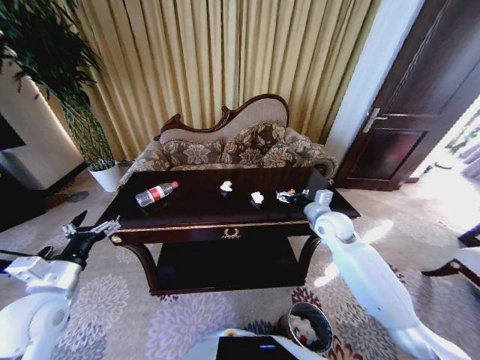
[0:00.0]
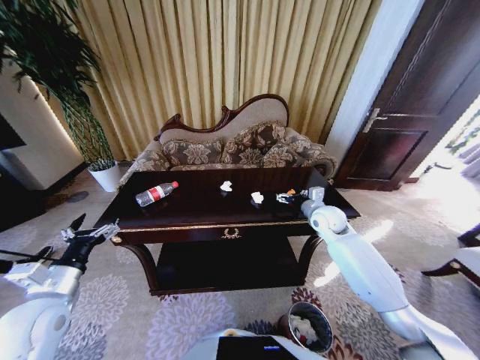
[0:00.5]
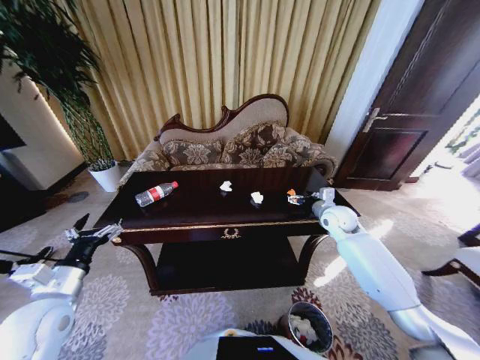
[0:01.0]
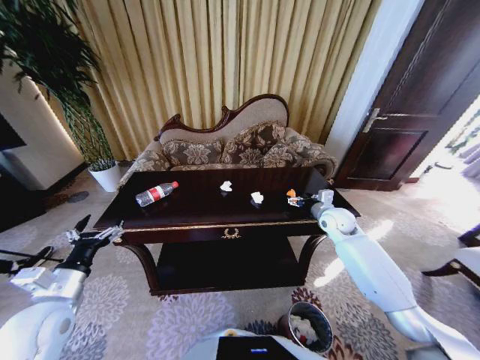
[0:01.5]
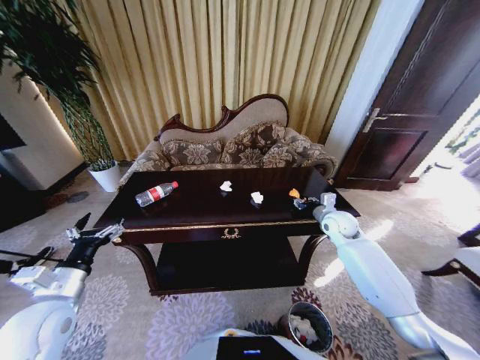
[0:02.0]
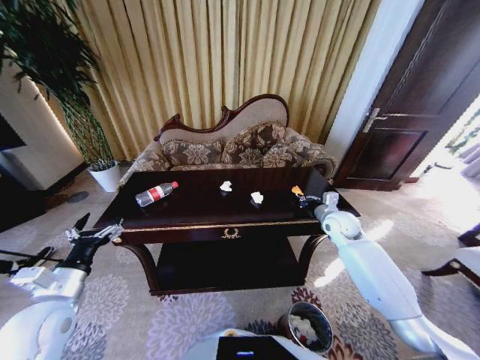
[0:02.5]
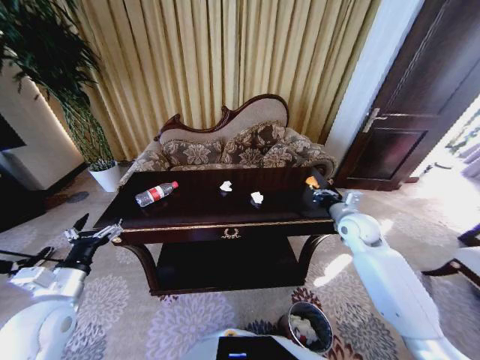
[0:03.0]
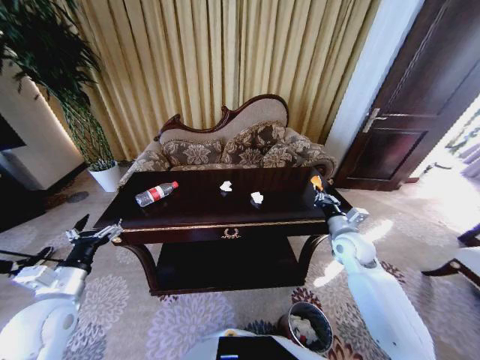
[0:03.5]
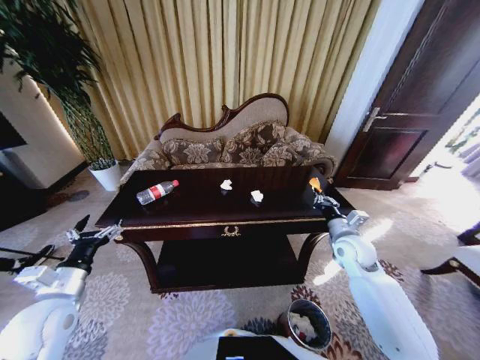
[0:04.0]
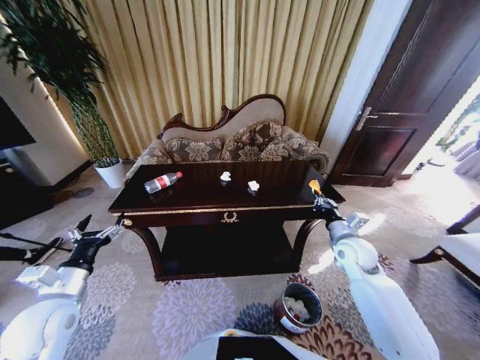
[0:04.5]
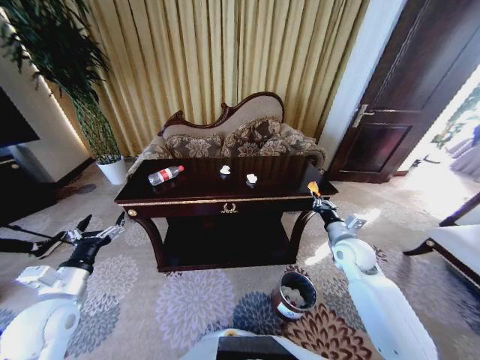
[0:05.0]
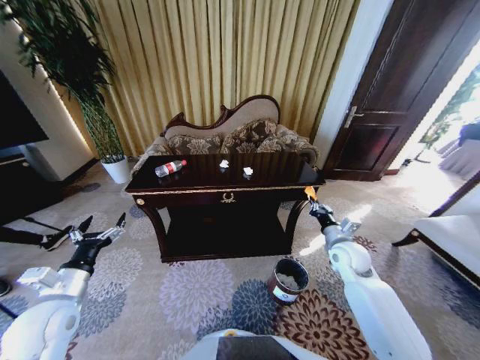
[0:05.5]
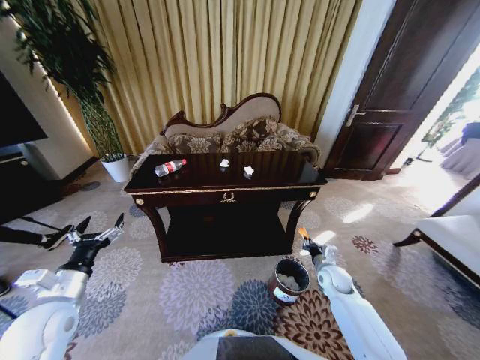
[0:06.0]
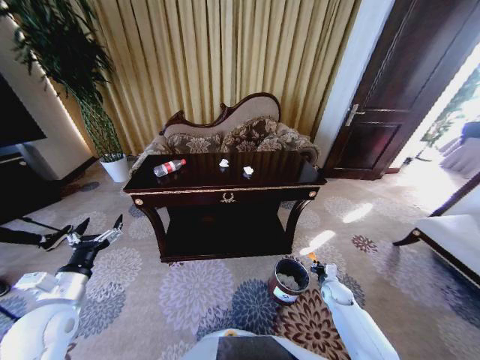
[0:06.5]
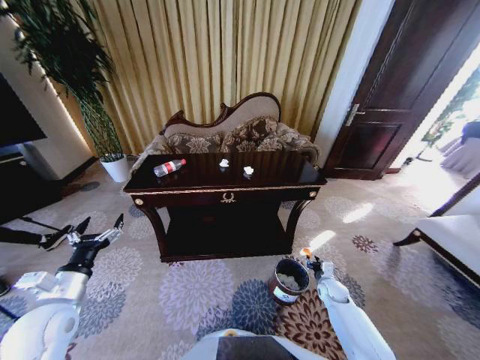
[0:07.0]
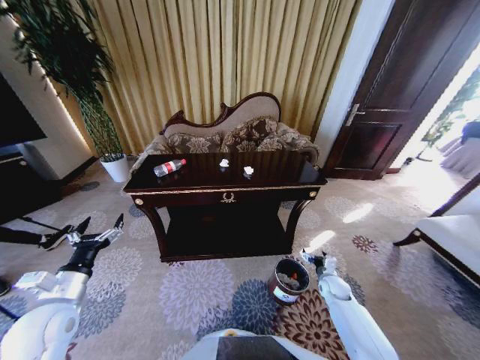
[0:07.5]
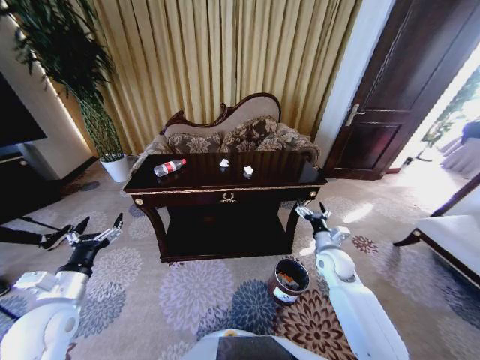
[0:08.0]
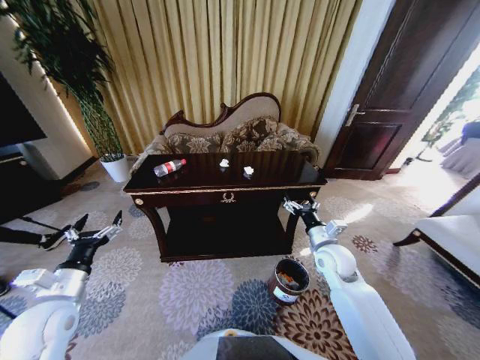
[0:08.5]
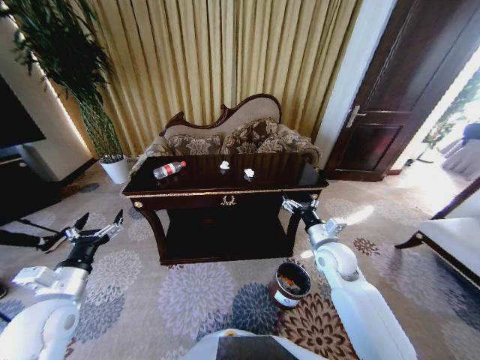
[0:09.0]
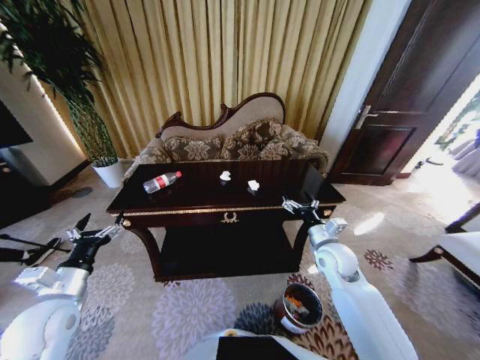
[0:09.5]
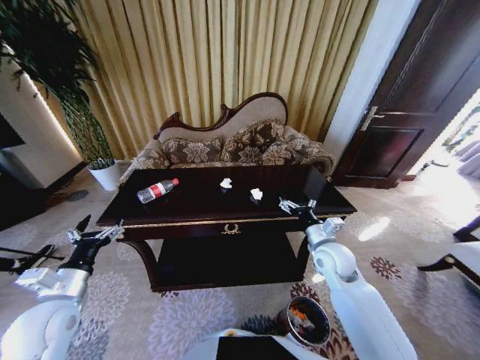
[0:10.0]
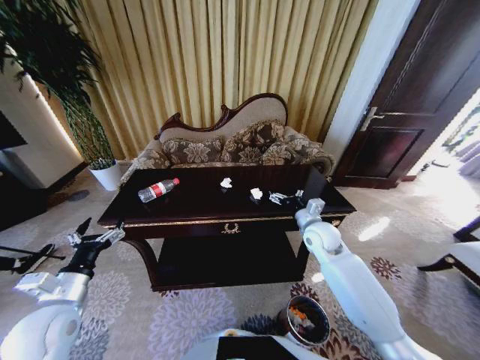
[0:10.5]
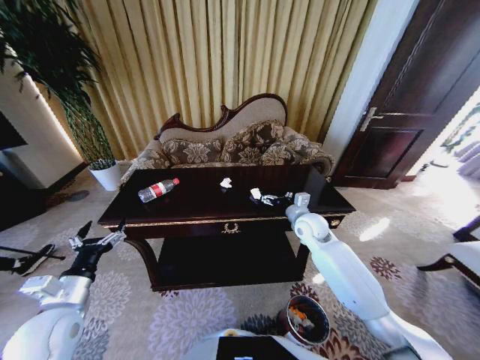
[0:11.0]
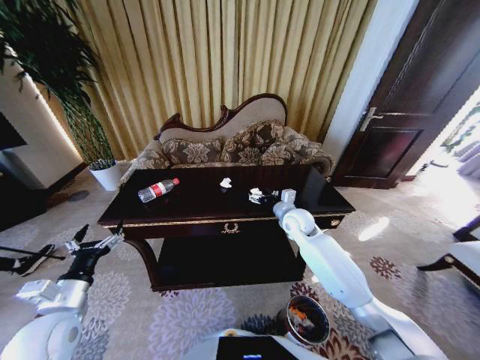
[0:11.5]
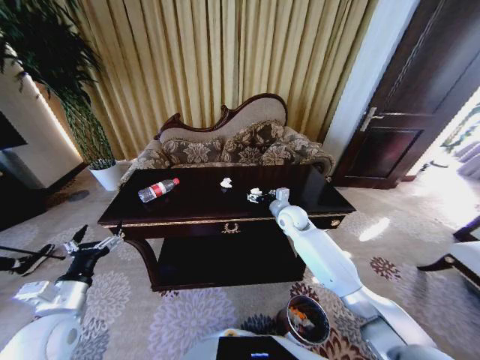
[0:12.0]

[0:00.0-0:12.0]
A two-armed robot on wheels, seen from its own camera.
Task of the whole recording: Move to the front of the table and place the trash on the table into the trash bin.
0:00.0 to 0:02.0: The right gripper is displaced to the right by approximately 5 cm, and closes up.
0:02.0 to 0:04.0: The right gripper is displaced backward by some 10 cm, and closes its fingers.
0:04.0 to 0:06.0: The right gripper moves downward, approximately 15 cm.
0:06.0 to 0:08.0: The right gripper is displaced upward by roughly 10 cm, and opens its fingers.
0:08.0 to 0:10.0: The right gripper moves upward, some 5 cm.
0:10.0 to 0:12.0: The right gripper heads forward and to the left, covering approximately 15 cm.

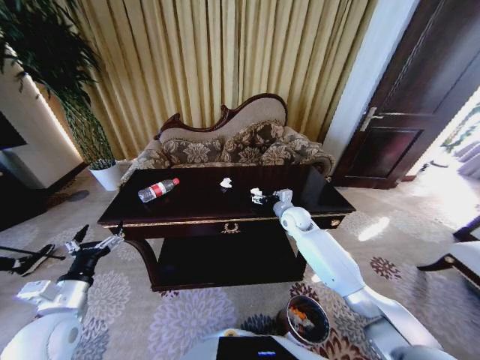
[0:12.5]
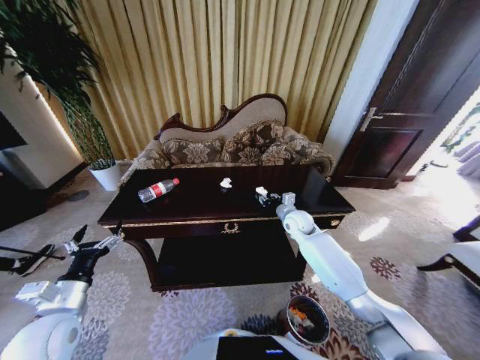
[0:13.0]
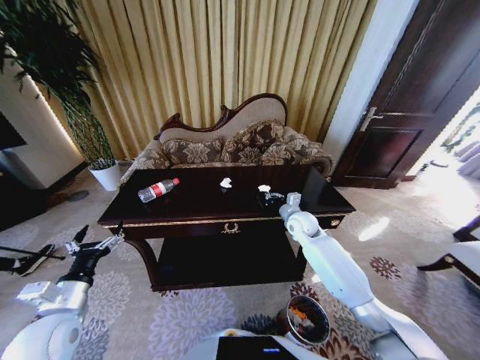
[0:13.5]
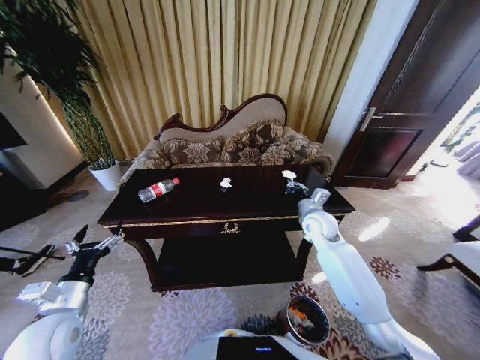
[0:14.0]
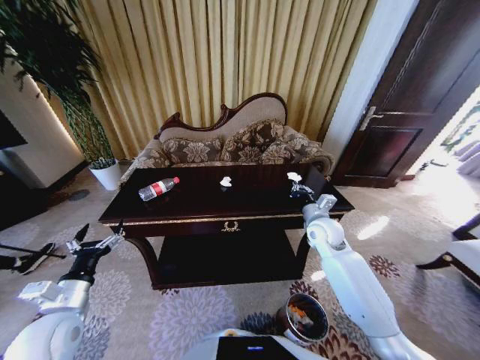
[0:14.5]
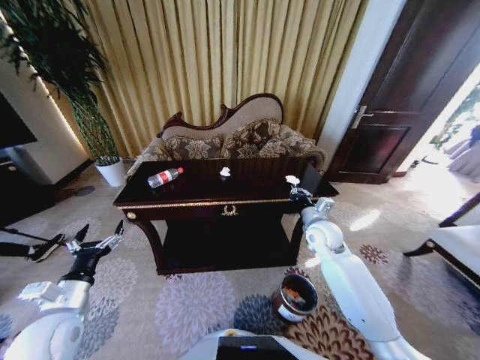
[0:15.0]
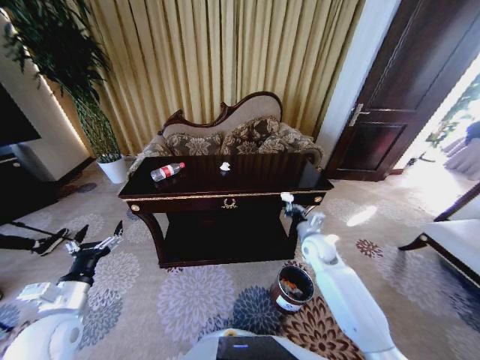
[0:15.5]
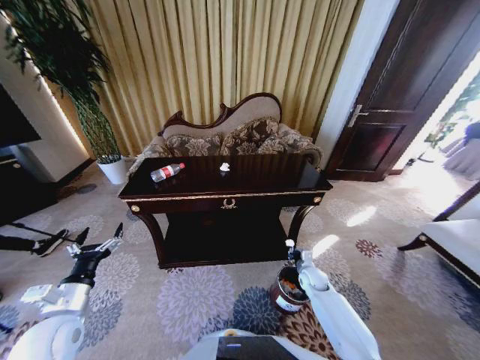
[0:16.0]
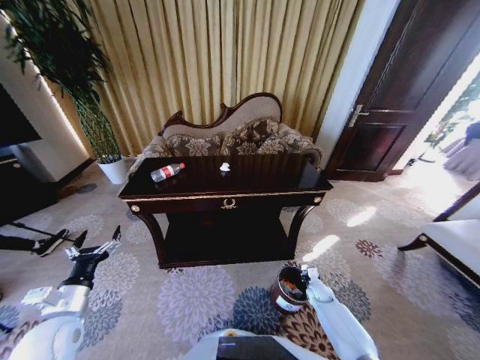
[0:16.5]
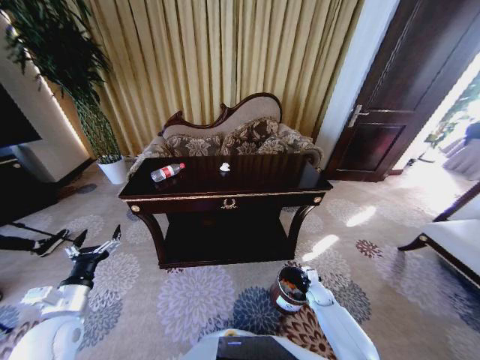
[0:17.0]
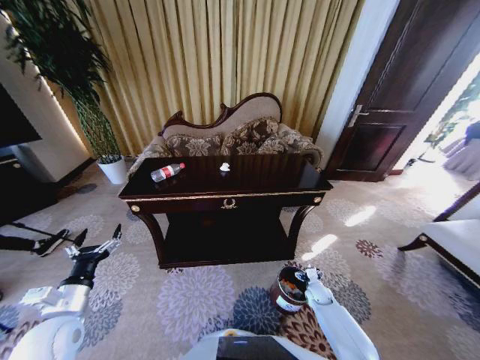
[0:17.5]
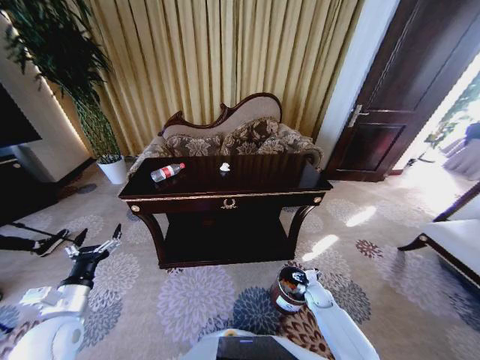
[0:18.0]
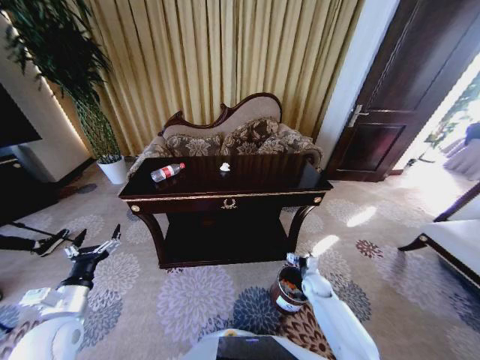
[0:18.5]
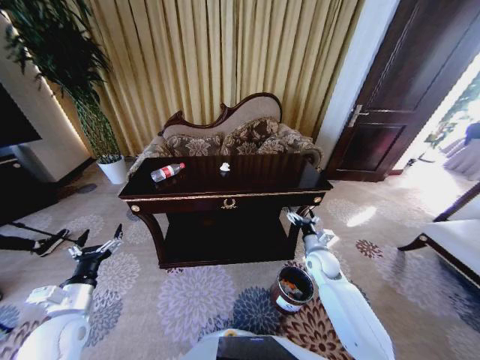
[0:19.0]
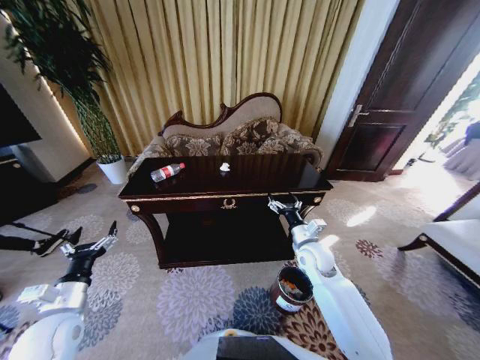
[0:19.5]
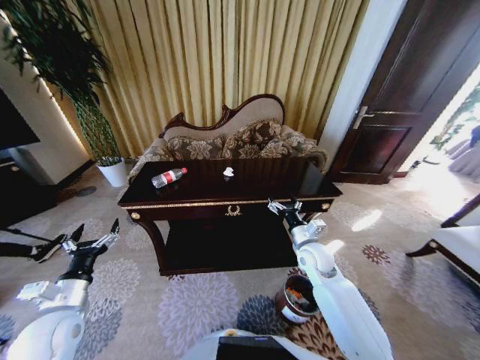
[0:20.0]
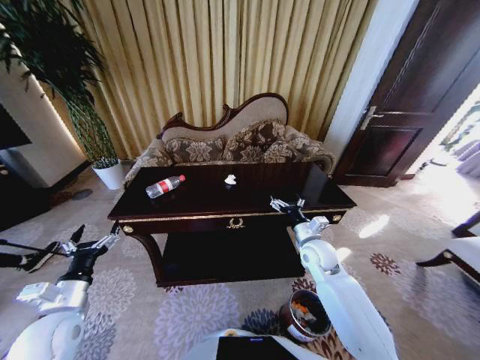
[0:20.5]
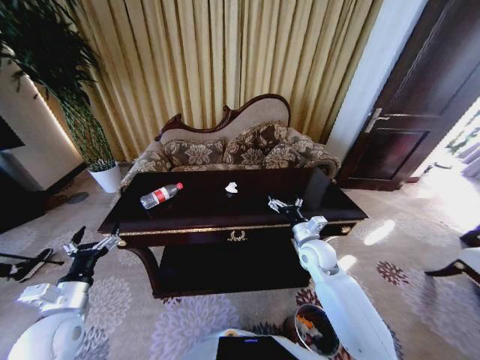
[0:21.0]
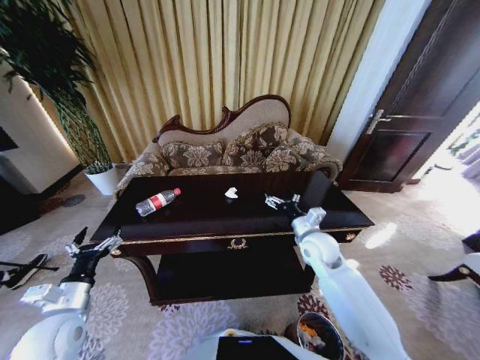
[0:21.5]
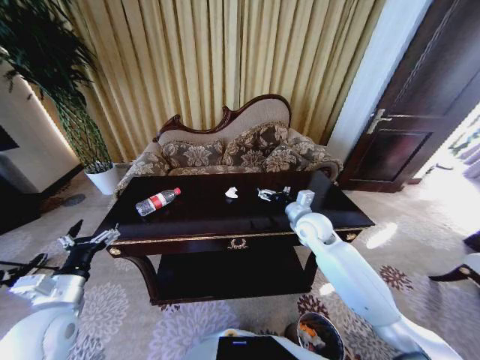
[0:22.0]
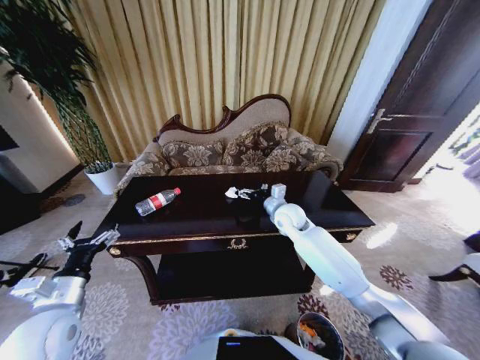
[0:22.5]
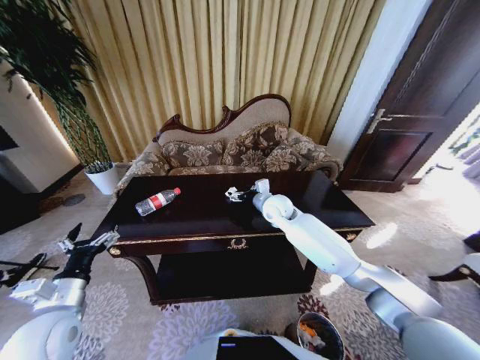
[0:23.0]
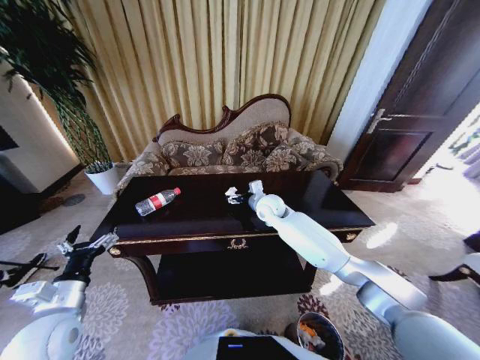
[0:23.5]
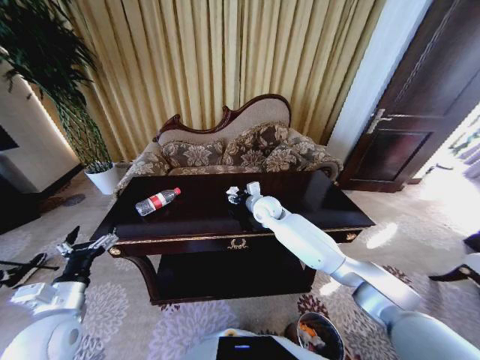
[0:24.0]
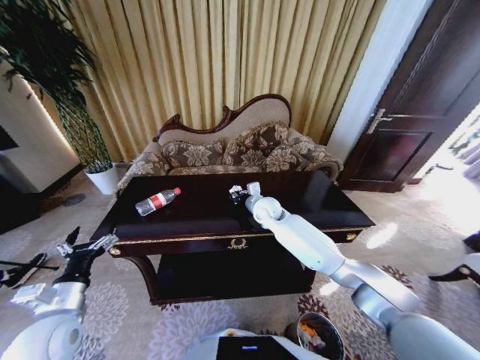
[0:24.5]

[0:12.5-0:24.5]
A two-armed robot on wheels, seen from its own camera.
Task of the whole recording: Move to the front of the table and place the trash on the table into the trash bin.
0:12.5 to 0:14.5: The right gripper is displaced backward and to the right by roughly 10 cm, and closes its fingers.
0:14.5 to 0:16.5: The right gripper travels downward by about 30 cm.
0:16.5 to 0:18.5: The right gripper moves upward, approximately 5 cm, and opens its fingers.
0:18.5 to 0:20.5: The right gripper is displaced upward by about 25 cm.
0:20.5 to 0:22.5: The right gripper shifts roughly 15 cm forward, to the left and upward.
0:22.5 to 0:24.5: The right gripper shifts roughly 5 cm to the left, and closes.

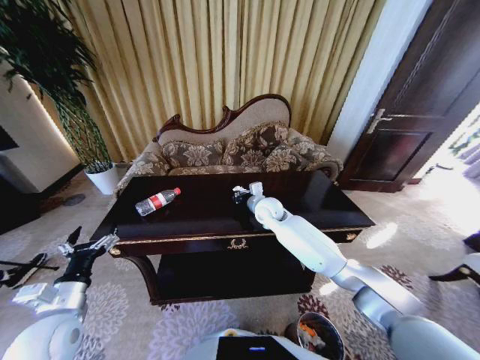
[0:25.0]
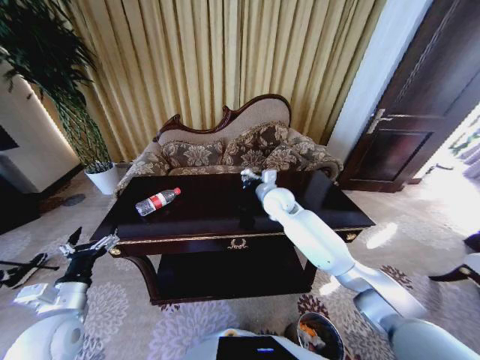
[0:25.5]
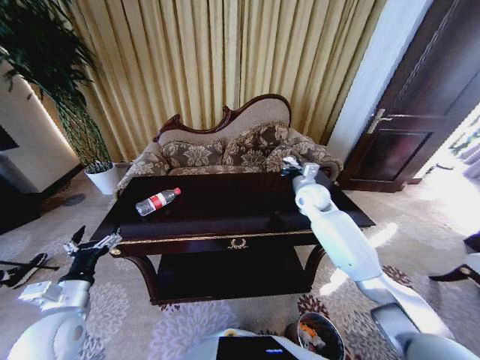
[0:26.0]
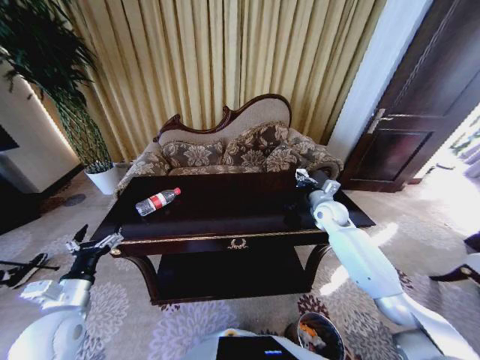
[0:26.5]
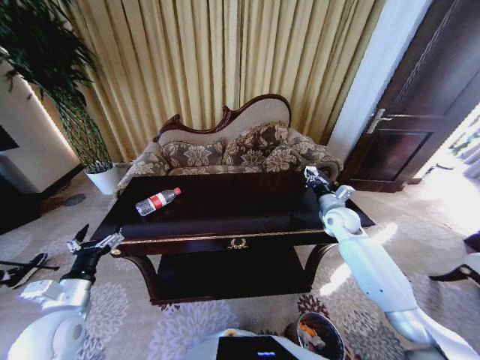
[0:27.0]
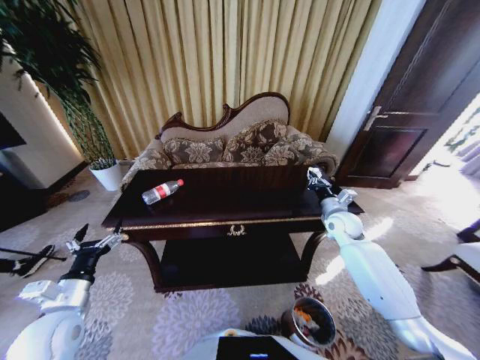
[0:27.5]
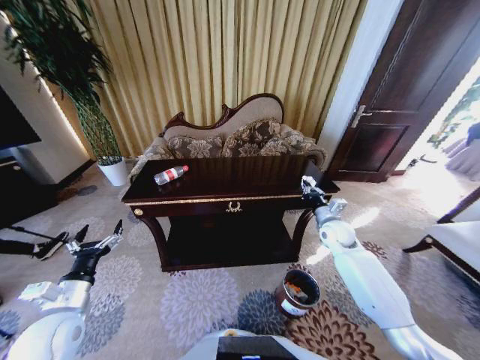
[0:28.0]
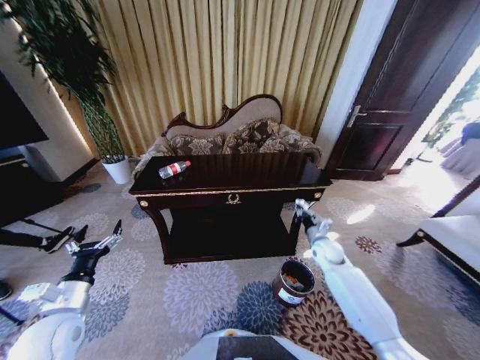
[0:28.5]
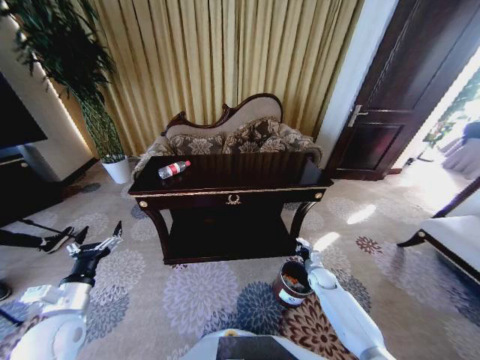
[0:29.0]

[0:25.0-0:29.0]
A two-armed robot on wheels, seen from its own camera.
Task of the whole recording: Move to the front of the table and place the trash on the table into the trash bin.
0:25.0 to 0:27.0: The right gripper heads to the right, covering about 25 cm.
0:27.0 to 0:29.0: The right gripper heads downward, covering some 25 cm.
